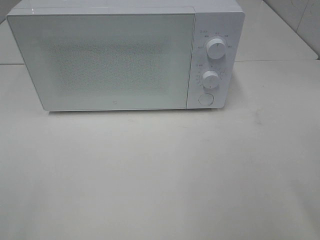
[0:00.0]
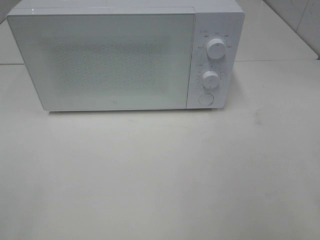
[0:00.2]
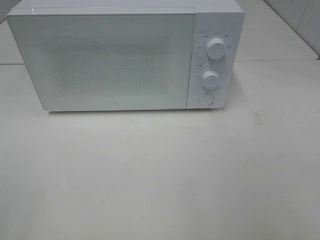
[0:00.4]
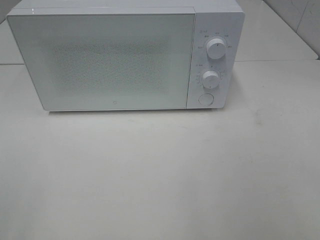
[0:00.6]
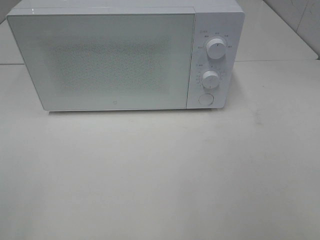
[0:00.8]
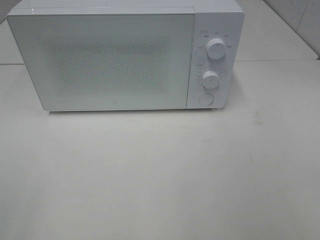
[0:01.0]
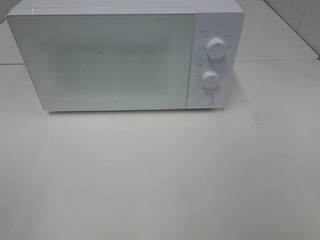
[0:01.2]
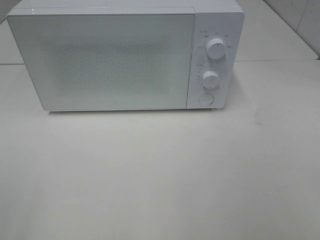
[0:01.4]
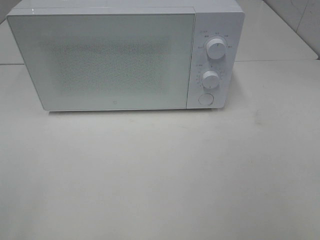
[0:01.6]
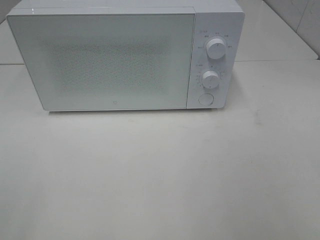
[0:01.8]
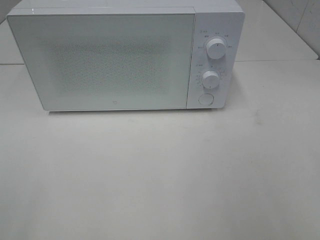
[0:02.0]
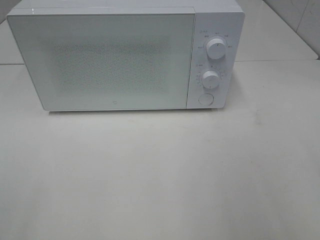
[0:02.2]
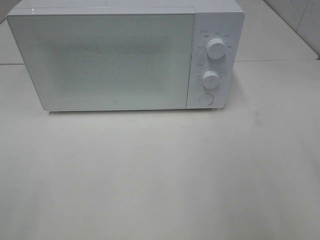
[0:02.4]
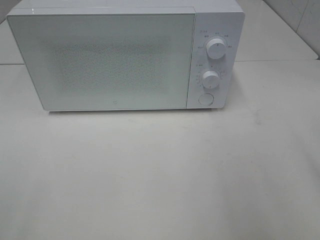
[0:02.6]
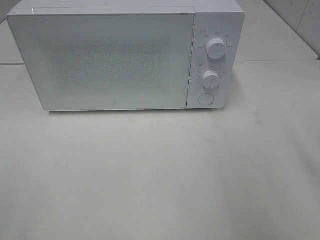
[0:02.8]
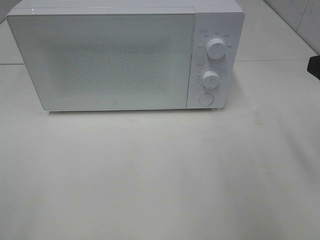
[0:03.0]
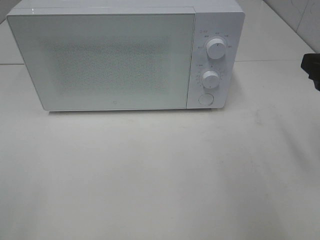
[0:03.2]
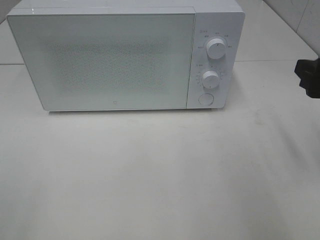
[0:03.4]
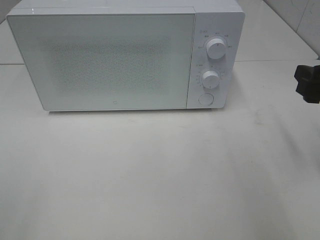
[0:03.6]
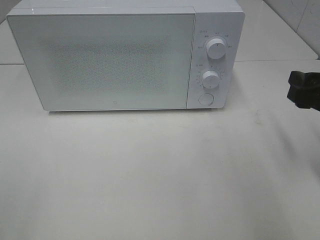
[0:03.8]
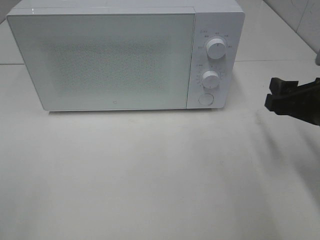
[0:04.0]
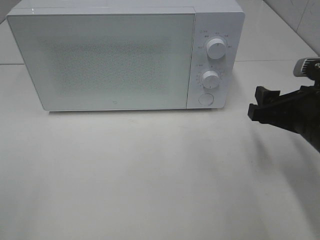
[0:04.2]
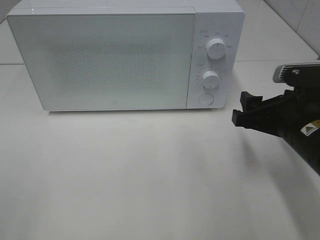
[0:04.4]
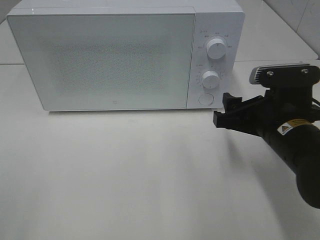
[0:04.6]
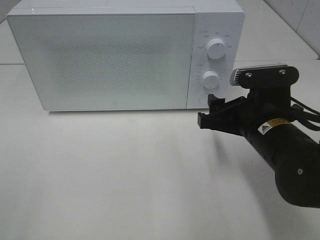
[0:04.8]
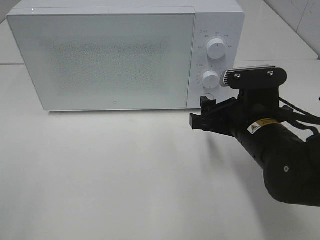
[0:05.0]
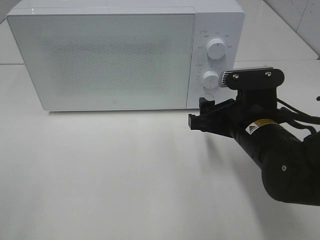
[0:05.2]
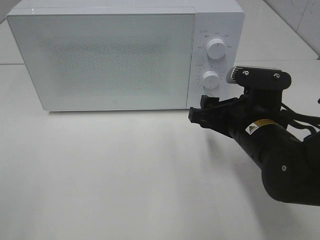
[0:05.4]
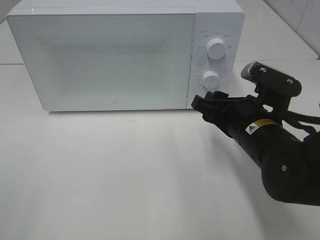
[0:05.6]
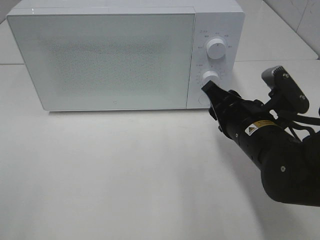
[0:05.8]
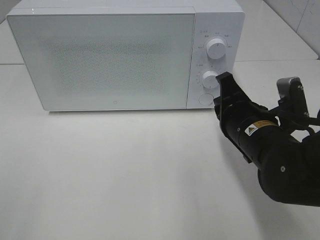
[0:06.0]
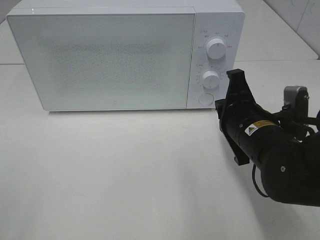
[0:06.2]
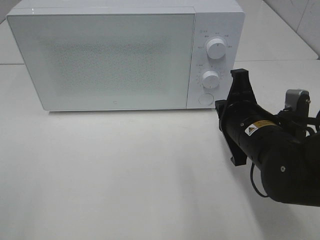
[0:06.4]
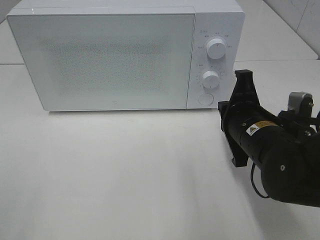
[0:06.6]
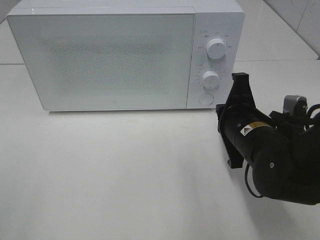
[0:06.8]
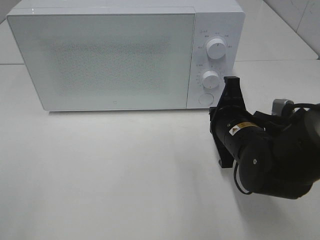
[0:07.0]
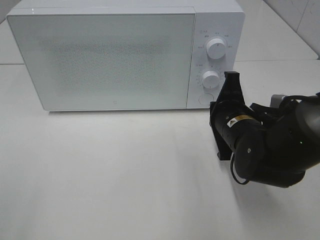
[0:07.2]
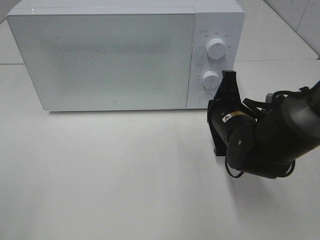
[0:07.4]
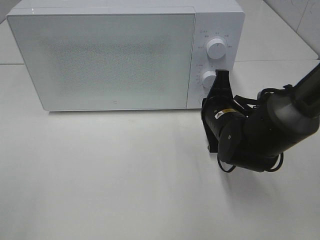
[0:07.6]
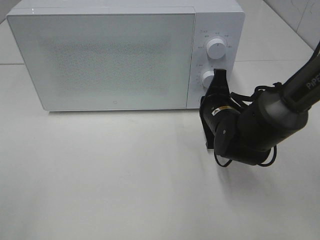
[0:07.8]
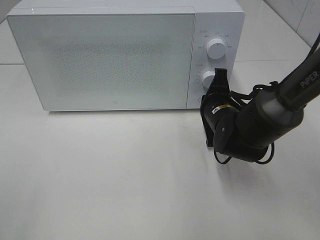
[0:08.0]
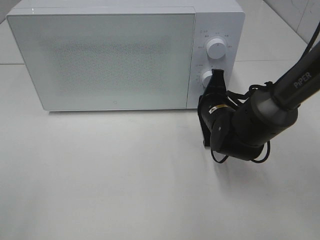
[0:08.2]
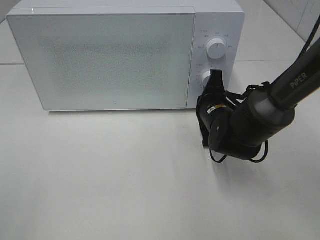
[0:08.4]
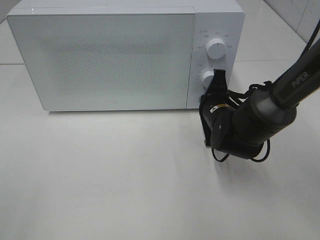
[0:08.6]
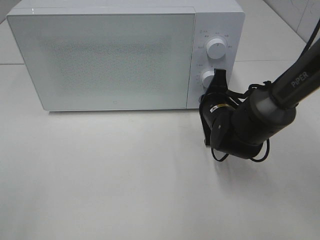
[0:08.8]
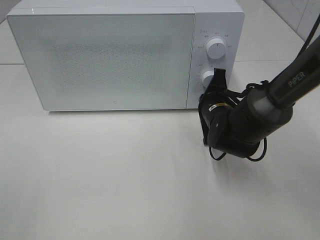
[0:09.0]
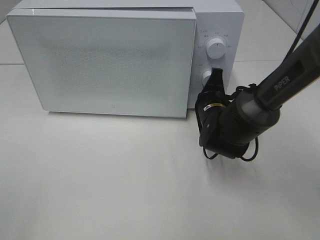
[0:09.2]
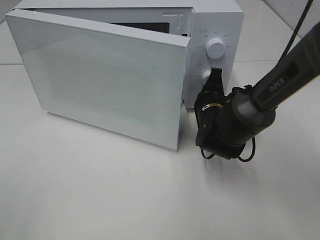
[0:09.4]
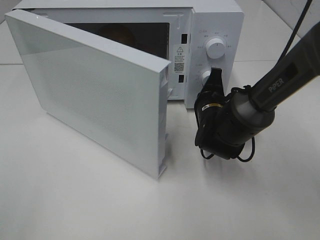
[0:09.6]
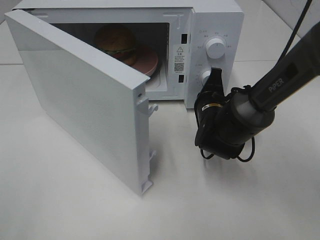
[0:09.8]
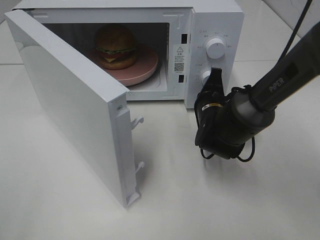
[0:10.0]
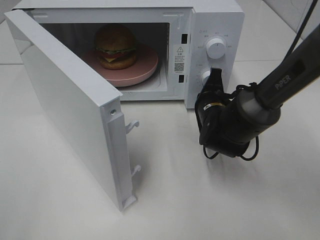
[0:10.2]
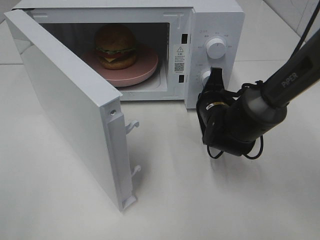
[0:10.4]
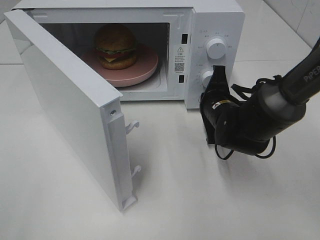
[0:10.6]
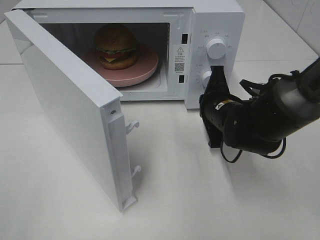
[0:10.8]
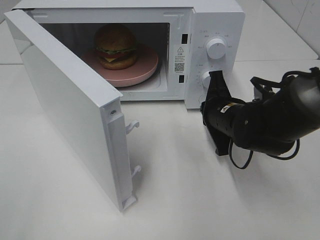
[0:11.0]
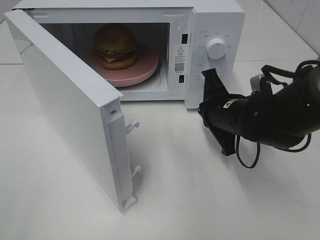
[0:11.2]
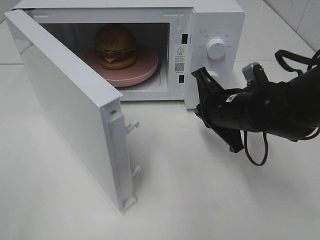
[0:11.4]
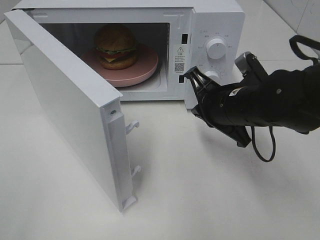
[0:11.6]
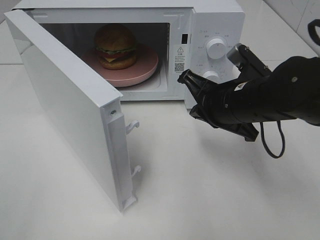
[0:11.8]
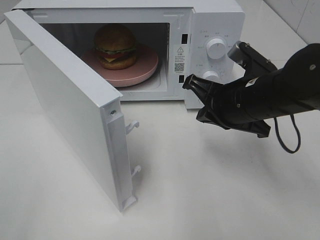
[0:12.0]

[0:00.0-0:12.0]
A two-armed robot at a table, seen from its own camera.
Task of the whole recording: Heat the burger.
Step, 0:00.0 to 0:10.6: Right hand: press the switch.
0:03.0 to 0:04.4: The right gripper travels downward and to the left by approximately 10 cm.
0:04.4 to 0:06.0: The right gripper heads to the left, covering some 5 cm, and closes up.
0:06.0 to 0:07.6: The right gripper heads forward, covering approximately 5 cm.
0:07.6 to 0:09.0: The grippers make only small movements.
0:10.4 to 0:12.0: The right gripper goes about 10 cm upward and backward.

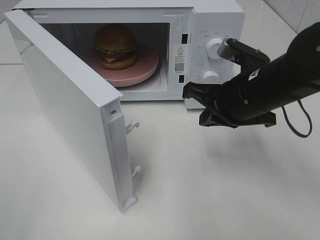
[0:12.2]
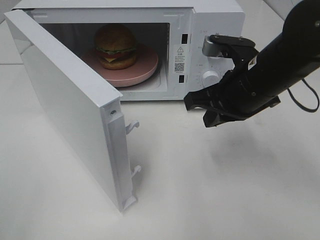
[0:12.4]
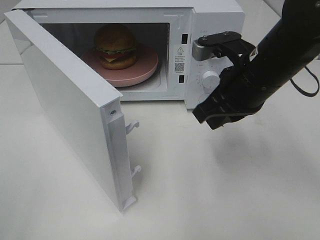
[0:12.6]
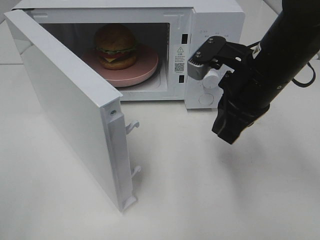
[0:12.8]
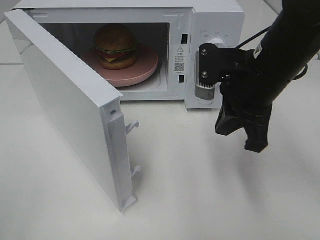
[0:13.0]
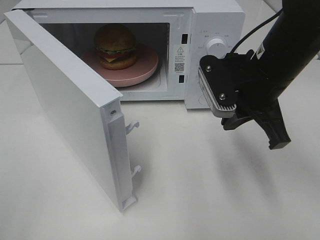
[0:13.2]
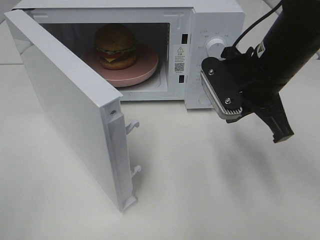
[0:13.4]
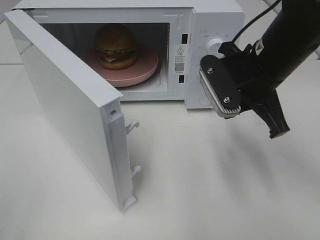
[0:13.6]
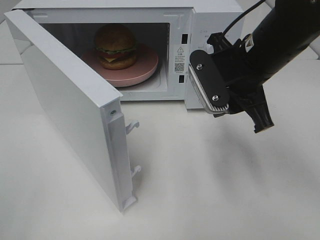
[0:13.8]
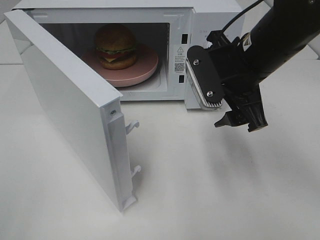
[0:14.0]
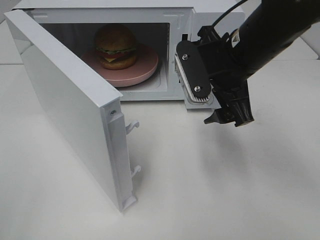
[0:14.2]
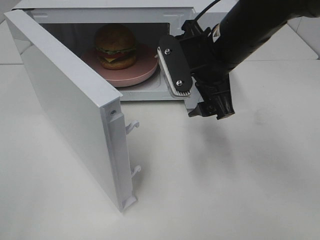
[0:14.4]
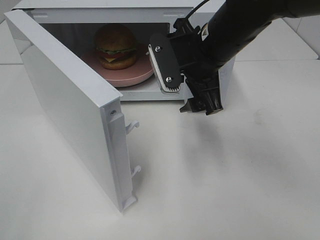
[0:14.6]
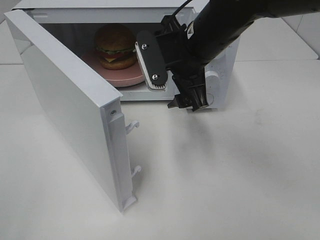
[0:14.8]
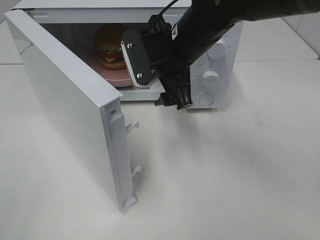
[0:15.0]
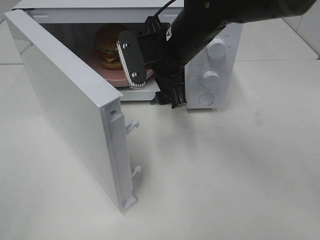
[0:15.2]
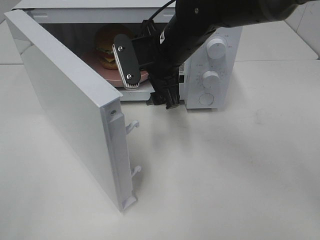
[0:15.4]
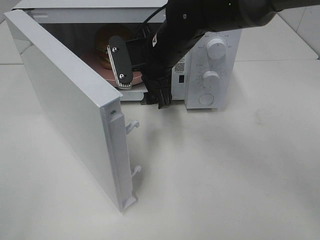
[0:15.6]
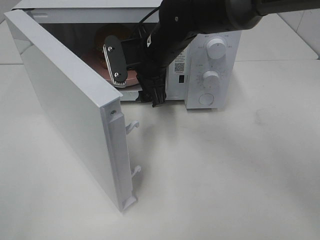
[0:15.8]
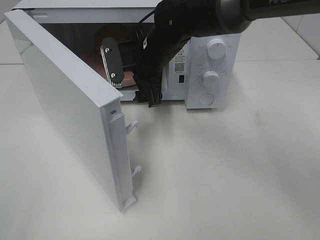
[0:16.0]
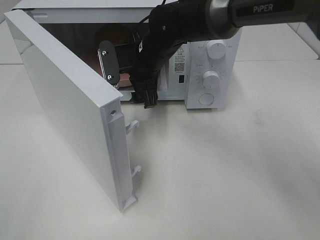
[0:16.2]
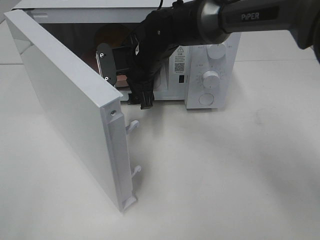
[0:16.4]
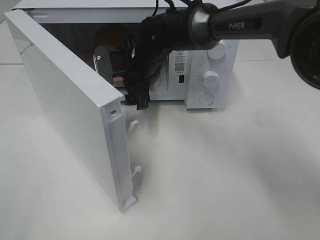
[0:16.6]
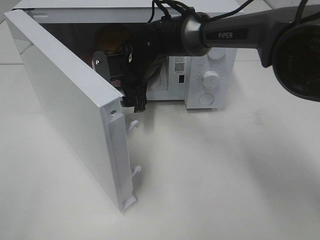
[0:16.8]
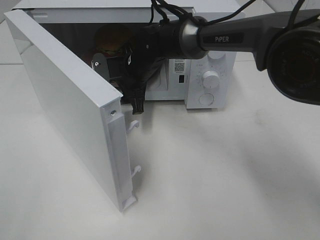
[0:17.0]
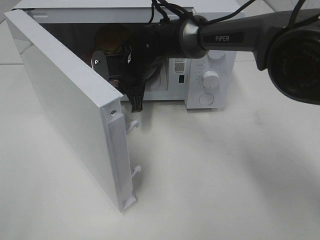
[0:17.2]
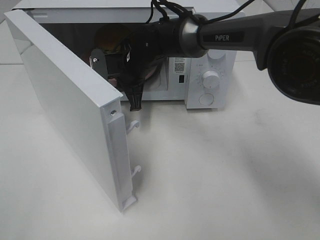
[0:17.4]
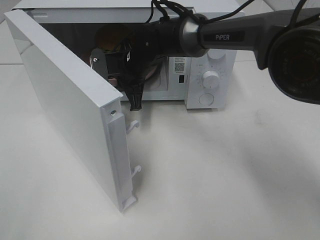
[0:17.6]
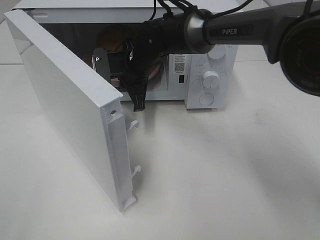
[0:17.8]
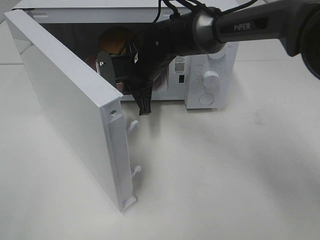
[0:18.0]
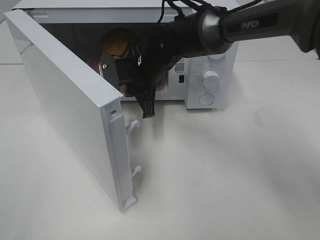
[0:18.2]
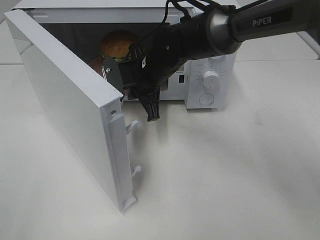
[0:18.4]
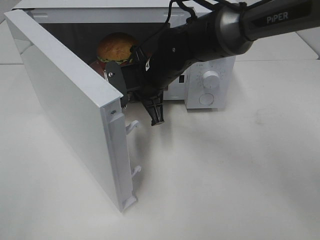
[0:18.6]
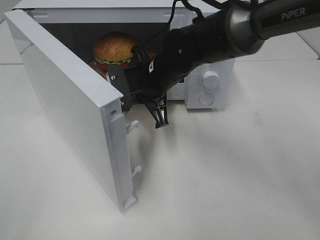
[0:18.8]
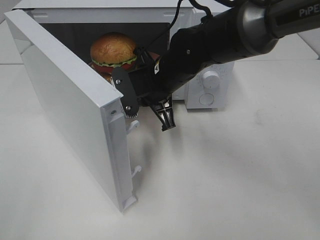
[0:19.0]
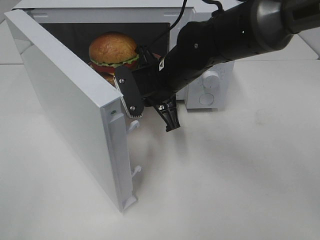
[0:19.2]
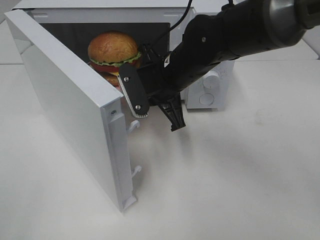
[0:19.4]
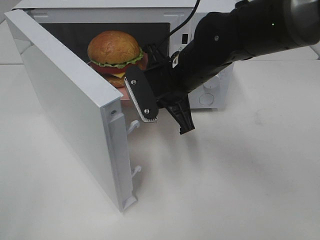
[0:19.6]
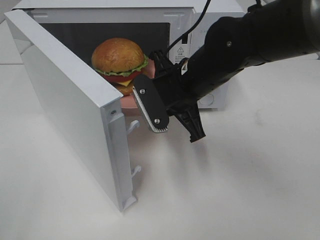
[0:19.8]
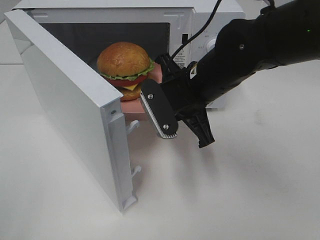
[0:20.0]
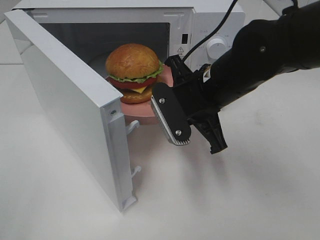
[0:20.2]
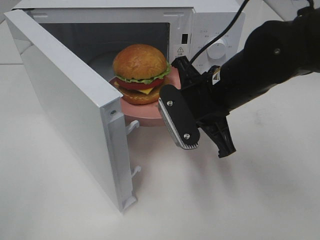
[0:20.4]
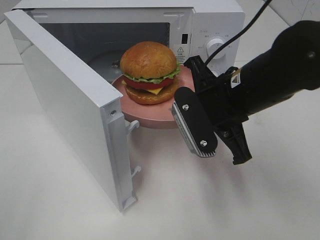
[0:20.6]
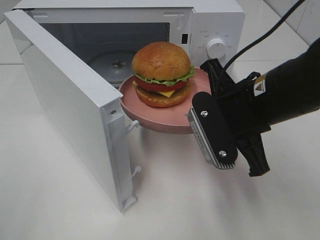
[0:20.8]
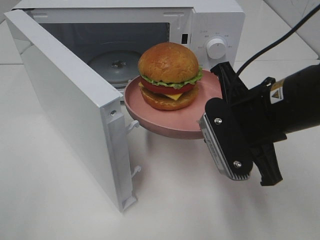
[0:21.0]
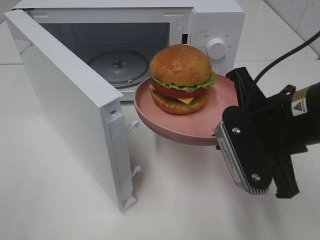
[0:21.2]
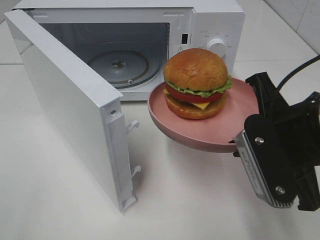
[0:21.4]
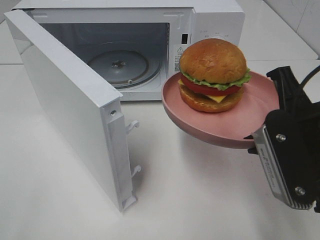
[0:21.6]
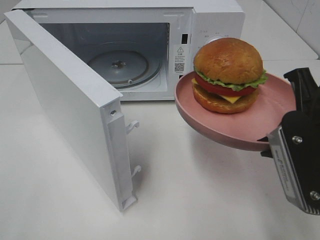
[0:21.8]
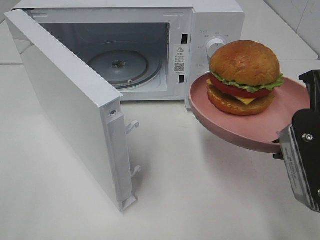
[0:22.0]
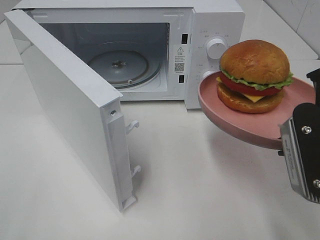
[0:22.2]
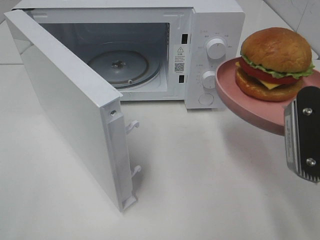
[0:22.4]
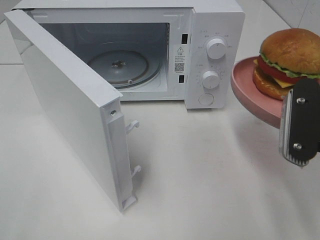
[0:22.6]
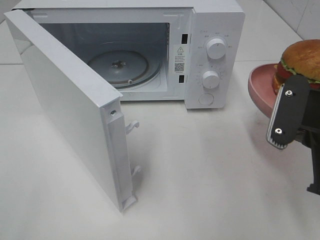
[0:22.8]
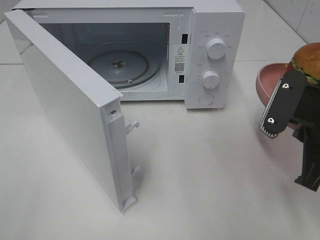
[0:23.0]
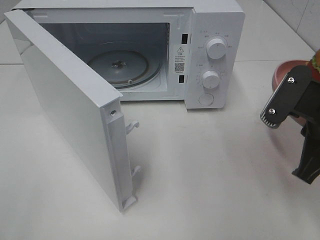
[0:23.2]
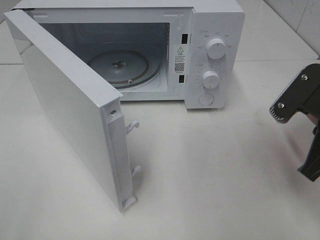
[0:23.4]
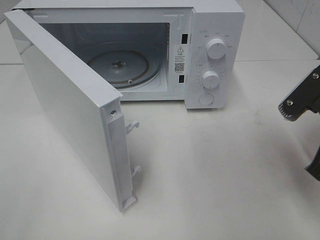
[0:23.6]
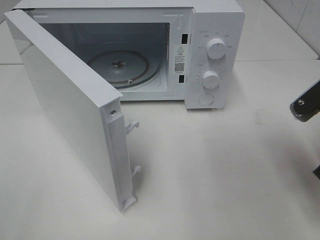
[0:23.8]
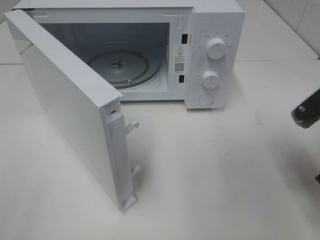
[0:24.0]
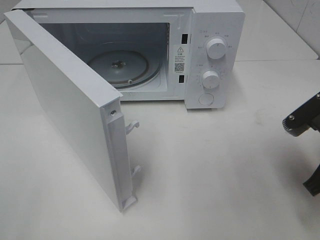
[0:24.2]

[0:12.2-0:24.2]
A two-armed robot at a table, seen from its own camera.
Task of the whole recording: Heat the burger.
Step, 0:12.2 to 0:17.4: Right hand: grab the plate with the hamburger.
0:12.2 to 0:13.8: The right gripper opens up.
0:13.8 to 0:15.2: The right gripper heads to the left and forward, covering about 10 cm, and opens its fingers.
0:15.2 to 0:16.6: The right gripper moves forward, downward and to the left, roughly 10 cm.
0:16.6 to 0:18.2: The right gripper closes up.
0:18.2 to 0:19.8: The right gripper is displaced backward and to the right by approximately 10 cm.
0:19.8 to 0:21.2: The right gripper moves backward and to the right, some 15 cm.
0:21.2 to 0:22.6: The right gripper goes roughly 5 cm to the right.
0:22.6 to 0:24.2: The right gripper moves downward, some 5 cm.
